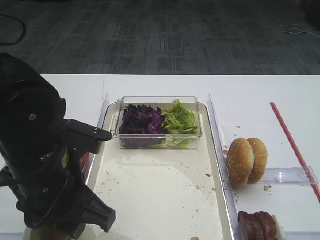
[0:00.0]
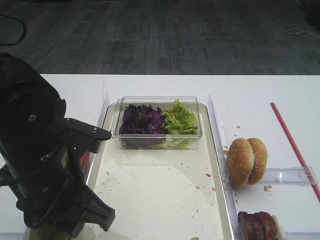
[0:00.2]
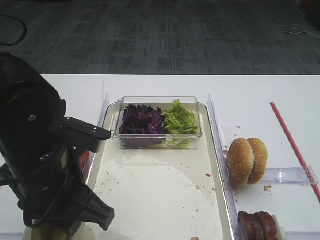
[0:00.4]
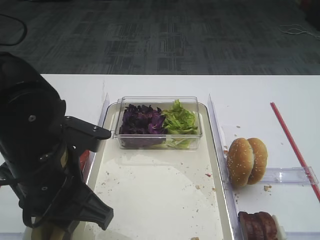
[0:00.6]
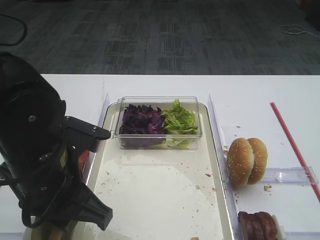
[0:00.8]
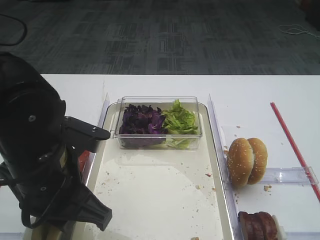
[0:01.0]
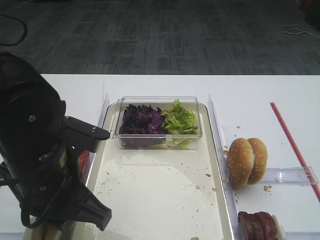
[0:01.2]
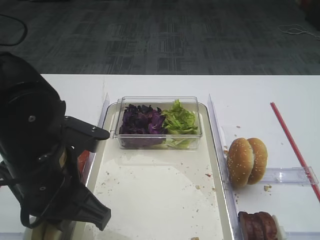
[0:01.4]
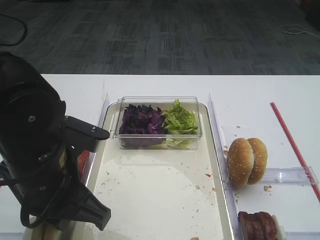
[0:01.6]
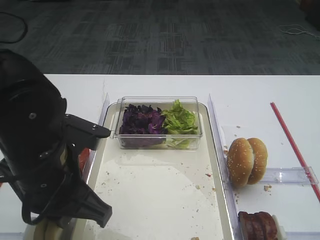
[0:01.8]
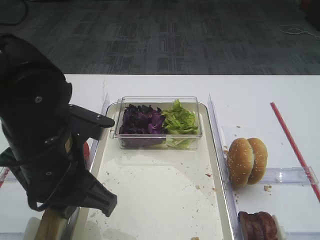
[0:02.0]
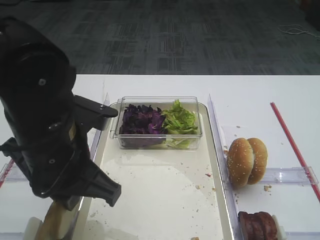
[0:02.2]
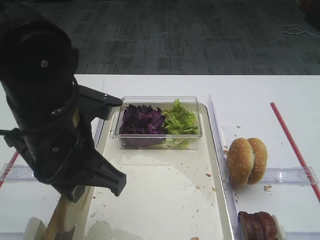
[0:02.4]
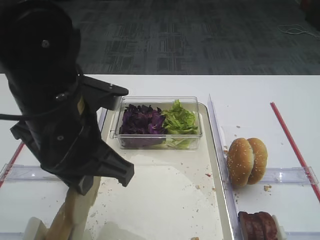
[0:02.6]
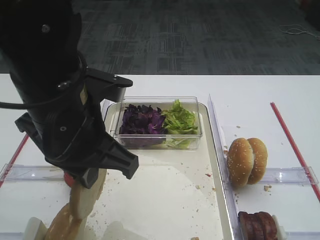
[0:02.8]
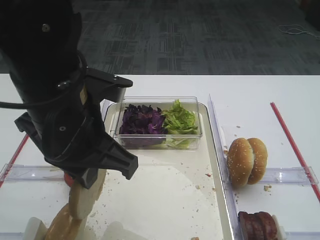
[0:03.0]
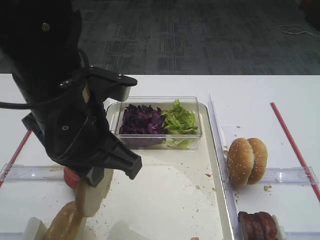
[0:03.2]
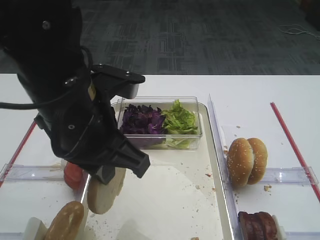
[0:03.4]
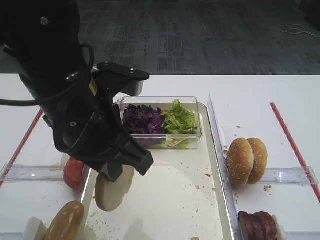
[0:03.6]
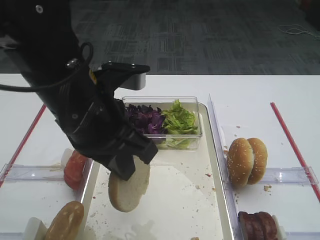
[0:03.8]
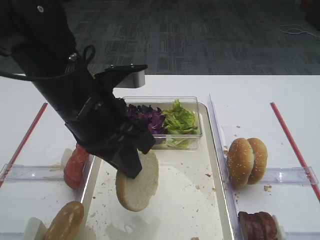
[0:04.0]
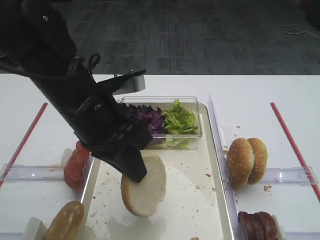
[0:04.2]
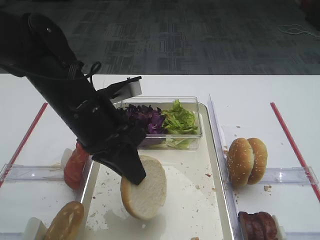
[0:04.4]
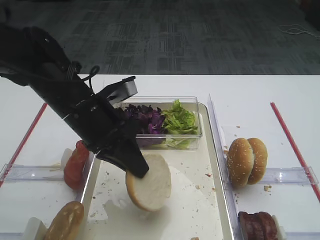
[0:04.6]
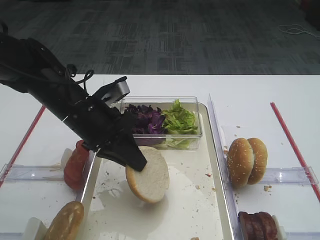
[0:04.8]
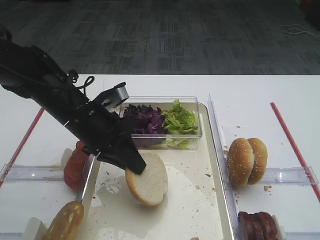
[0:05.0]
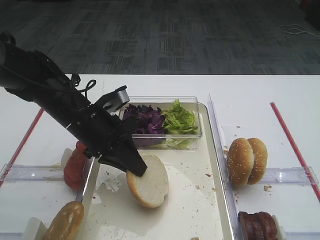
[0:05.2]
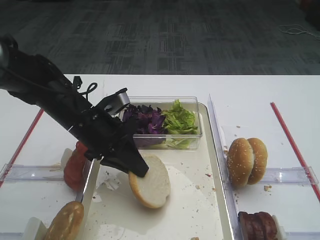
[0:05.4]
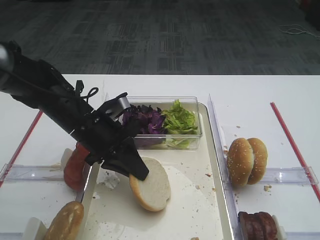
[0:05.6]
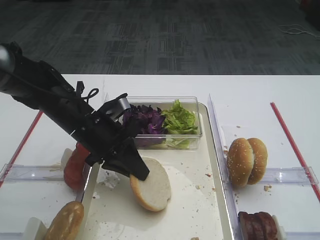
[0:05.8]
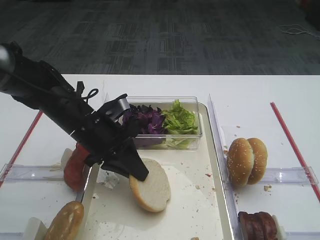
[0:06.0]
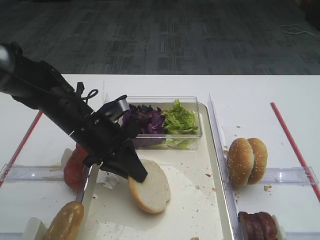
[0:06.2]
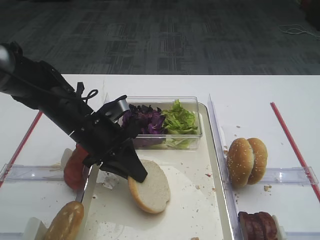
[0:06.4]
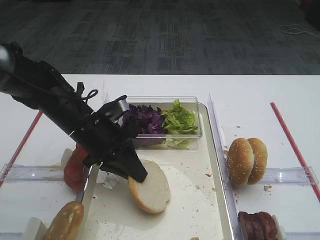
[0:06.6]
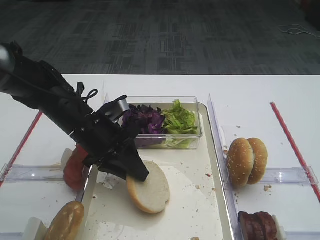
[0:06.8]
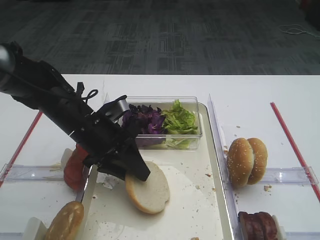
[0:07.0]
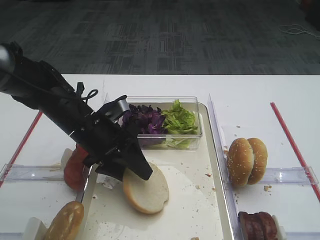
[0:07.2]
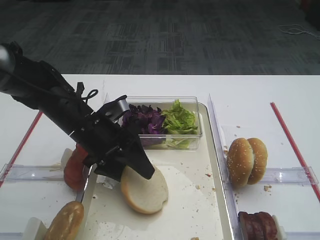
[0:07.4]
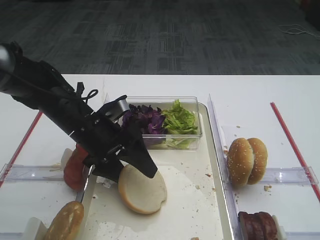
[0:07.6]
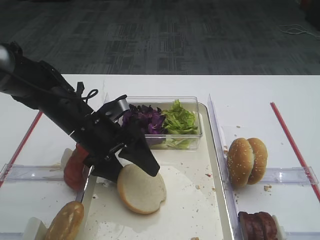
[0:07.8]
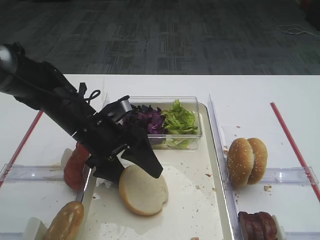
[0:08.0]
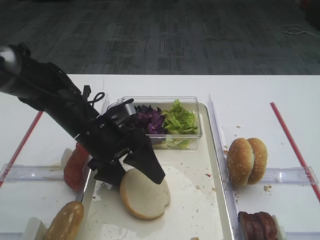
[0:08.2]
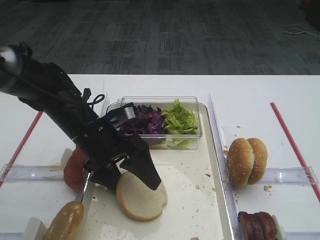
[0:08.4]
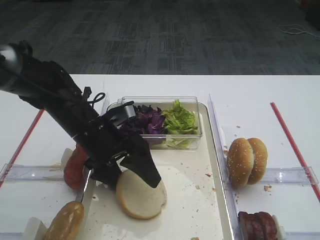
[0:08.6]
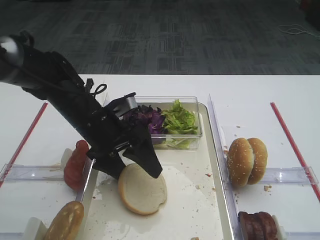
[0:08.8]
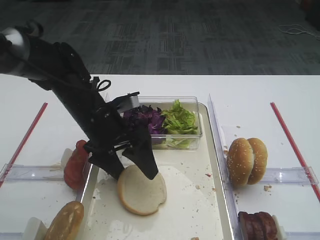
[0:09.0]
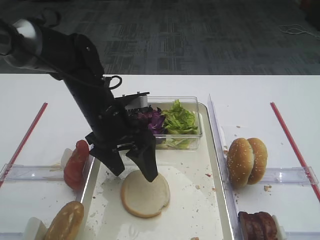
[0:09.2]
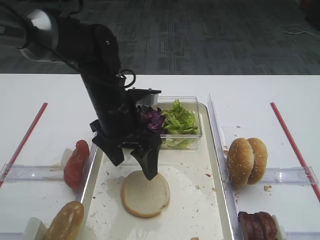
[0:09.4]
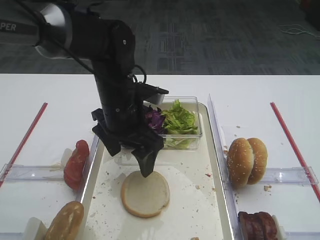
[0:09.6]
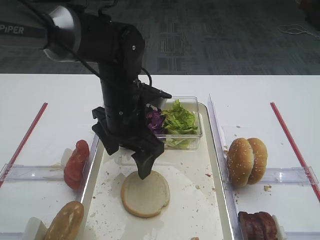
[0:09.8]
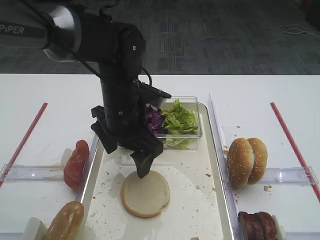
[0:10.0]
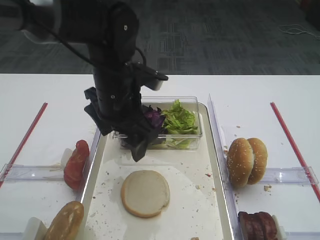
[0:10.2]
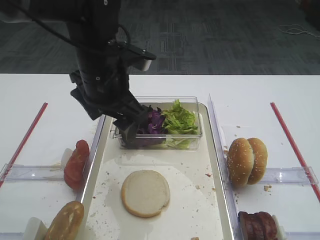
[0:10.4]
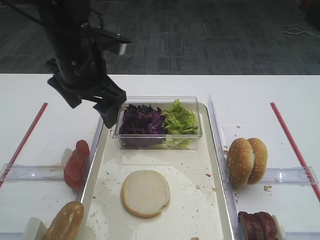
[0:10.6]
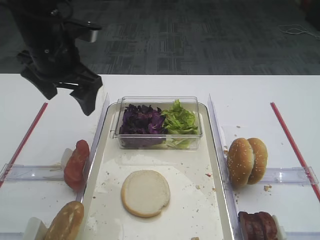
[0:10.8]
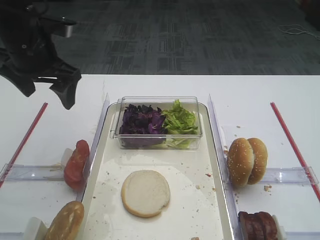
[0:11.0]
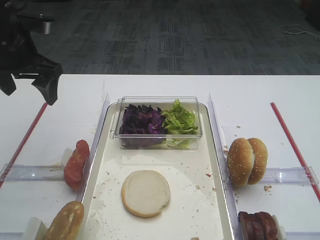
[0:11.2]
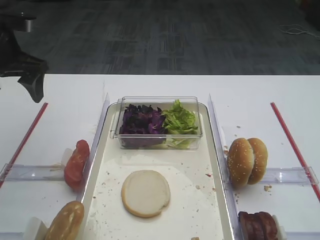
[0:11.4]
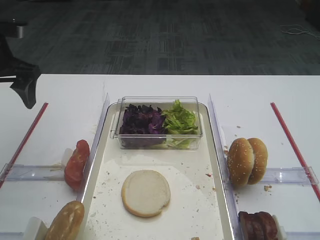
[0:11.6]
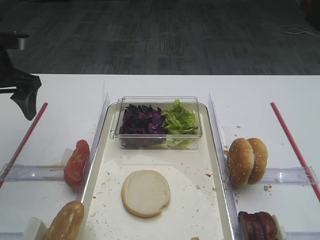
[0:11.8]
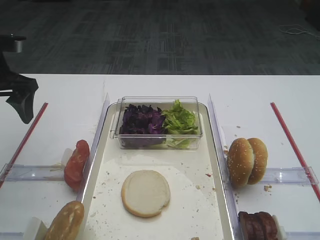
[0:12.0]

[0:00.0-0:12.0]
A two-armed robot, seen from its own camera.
Step, 0:00.0 to 0:02.0: Pick up the bread slice with the left gripper.
Step, 0:02.4 to 0:09.4: Place the bread slice on the tray with the left gripper.
0:00.0 to 0:01.6: The left gripper closes its fingers.
0:01.6 to 0:03.0: The left gripper is displaced upward by some 5 cm.
0:03.0 to 0:04.4: The left gripper goes roughly 10 cm forward and downward.
0:04.4 to 0:06.0: The left gripper travels downward by roughly 5 cm.
0:06.0 to 0:07.6: The left gripper opens up.
0:07.6 to 0:09.0: The grippers stay close to where they were, moving slightly.
0:09.0 to 0:10.4: The left gripper is displaced upward by approximately 10 cm.
0:10.4 to 0:12.0: The left gripper goes some 20 cm to the left.

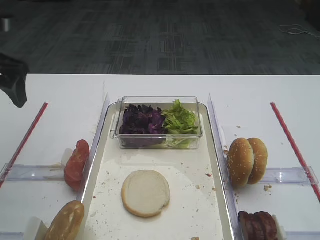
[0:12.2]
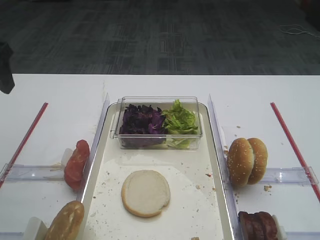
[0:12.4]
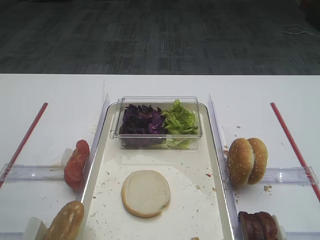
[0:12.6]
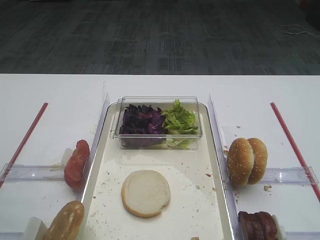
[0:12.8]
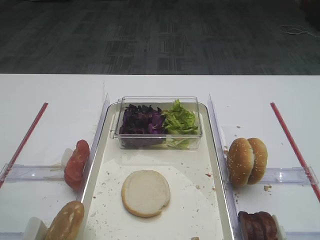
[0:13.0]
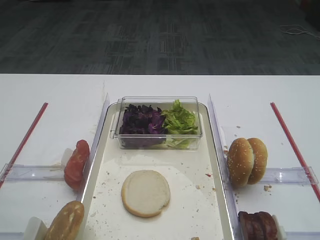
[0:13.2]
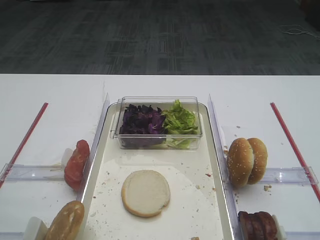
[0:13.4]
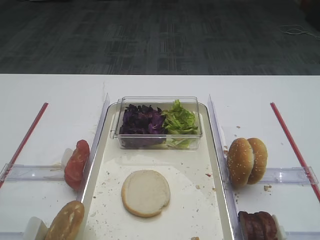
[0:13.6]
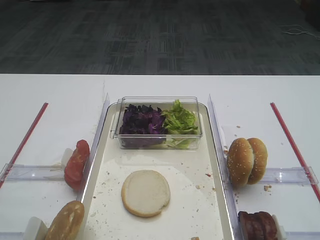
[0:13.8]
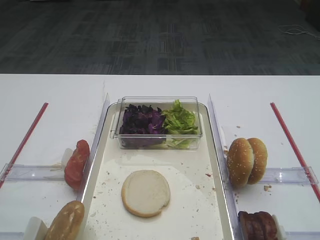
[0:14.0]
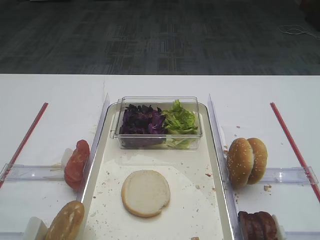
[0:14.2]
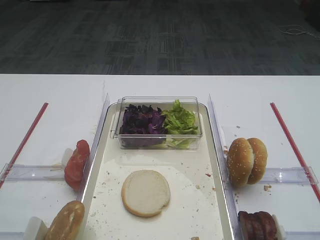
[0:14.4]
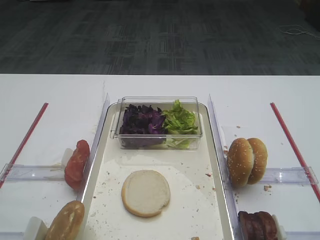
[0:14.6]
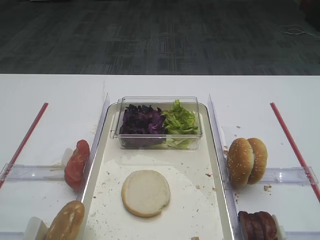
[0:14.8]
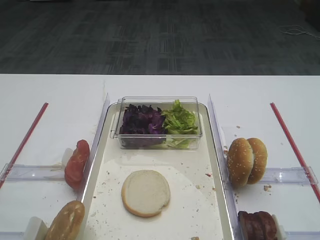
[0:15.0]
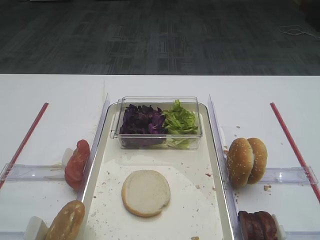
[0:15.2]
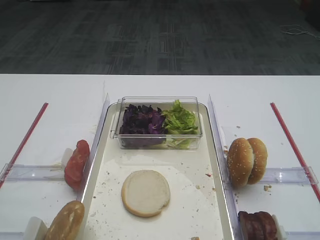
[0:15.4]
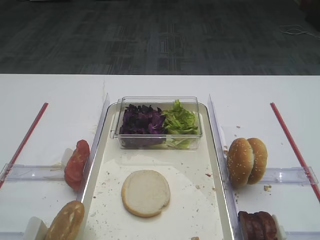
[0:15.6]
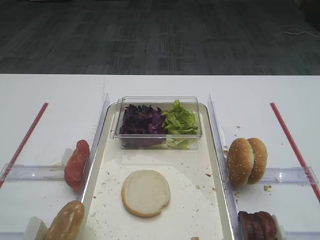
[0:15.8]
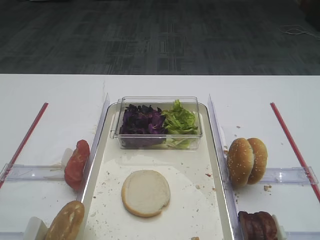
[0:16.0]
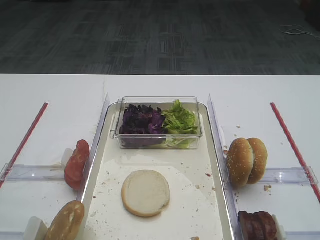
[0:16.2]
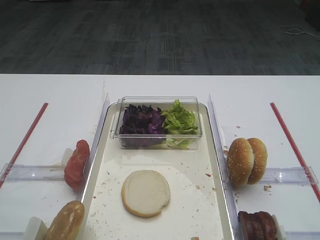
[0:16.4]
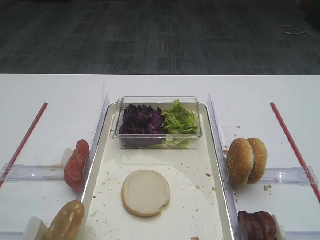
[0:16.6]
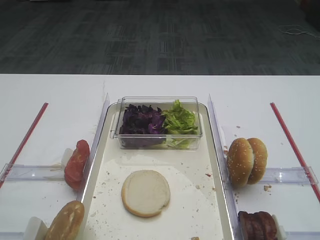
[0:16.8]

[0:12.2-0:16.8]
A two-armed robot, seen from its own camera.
0:12.2 to 0:13.8: The left gripper goes approximately 30 cm backward.
0:15.2 to 0:16.8: The two grippers keep their place.

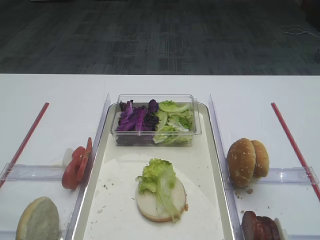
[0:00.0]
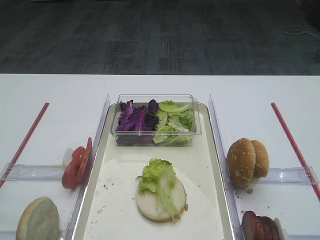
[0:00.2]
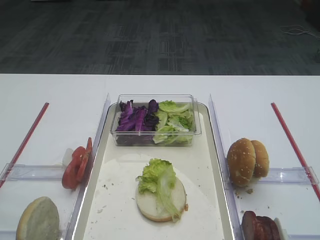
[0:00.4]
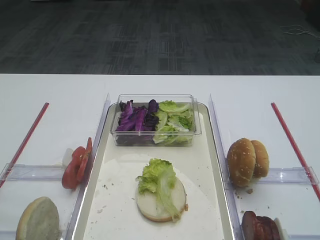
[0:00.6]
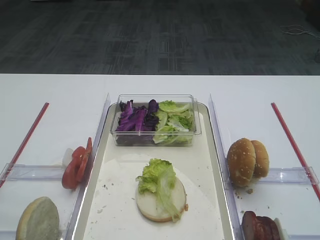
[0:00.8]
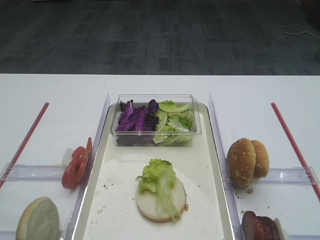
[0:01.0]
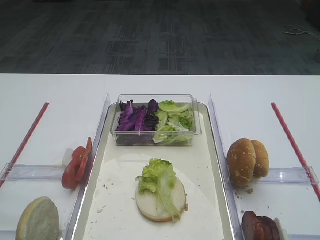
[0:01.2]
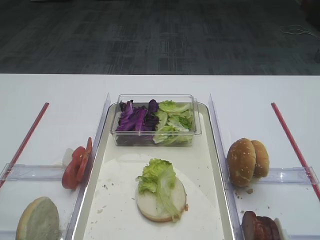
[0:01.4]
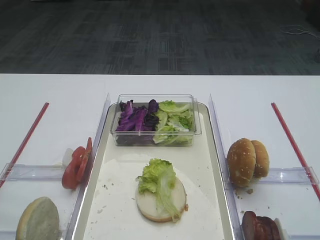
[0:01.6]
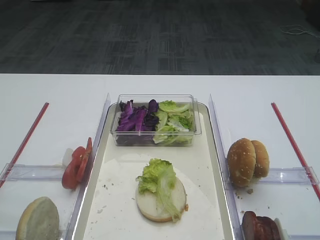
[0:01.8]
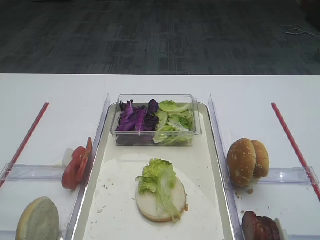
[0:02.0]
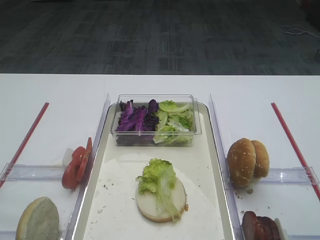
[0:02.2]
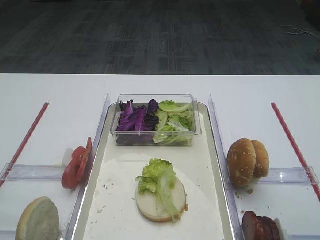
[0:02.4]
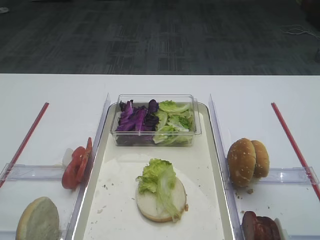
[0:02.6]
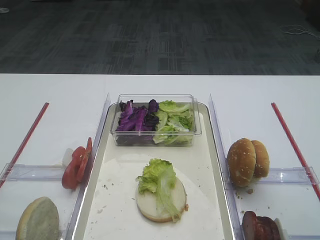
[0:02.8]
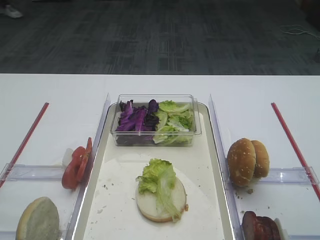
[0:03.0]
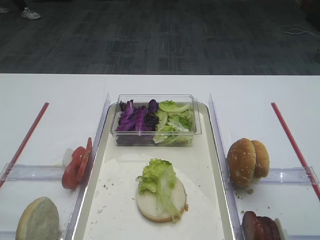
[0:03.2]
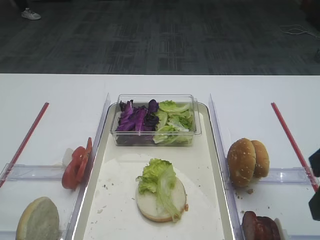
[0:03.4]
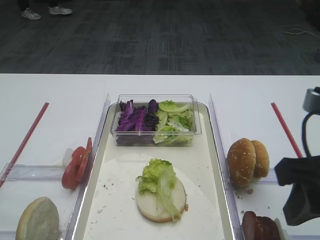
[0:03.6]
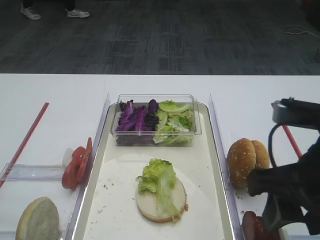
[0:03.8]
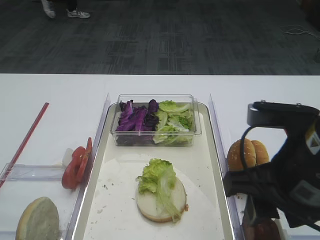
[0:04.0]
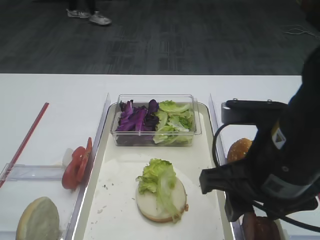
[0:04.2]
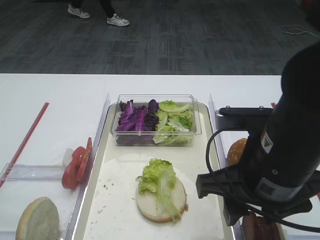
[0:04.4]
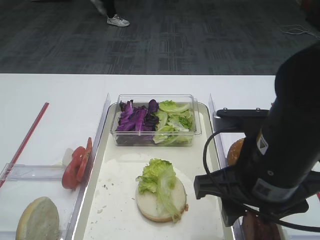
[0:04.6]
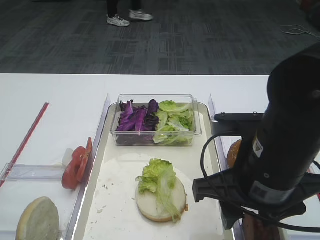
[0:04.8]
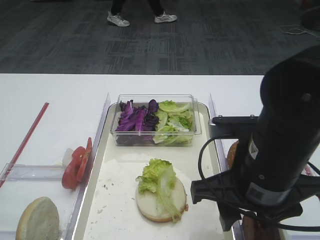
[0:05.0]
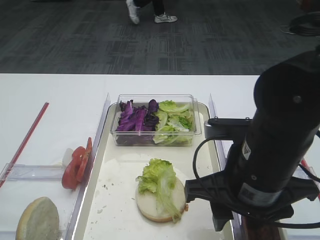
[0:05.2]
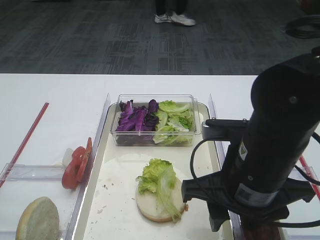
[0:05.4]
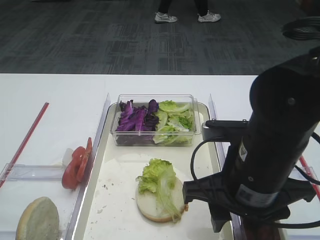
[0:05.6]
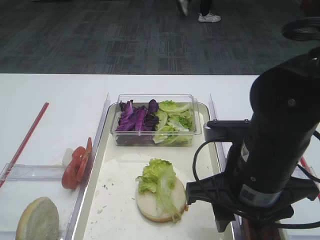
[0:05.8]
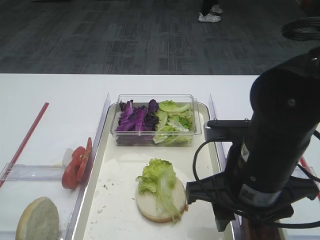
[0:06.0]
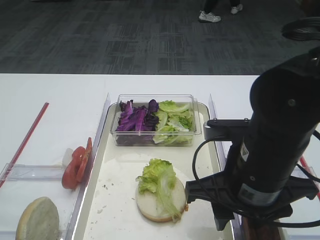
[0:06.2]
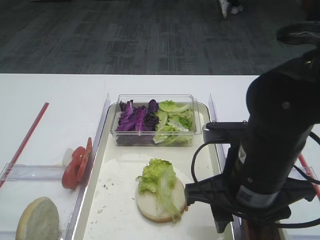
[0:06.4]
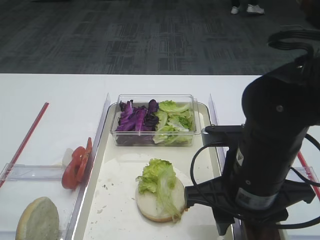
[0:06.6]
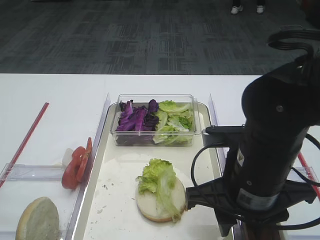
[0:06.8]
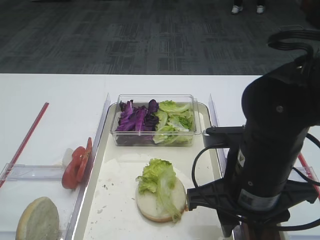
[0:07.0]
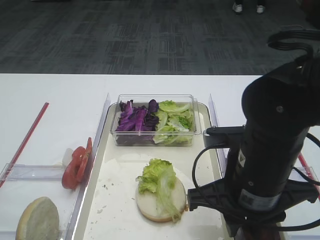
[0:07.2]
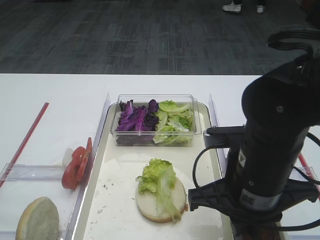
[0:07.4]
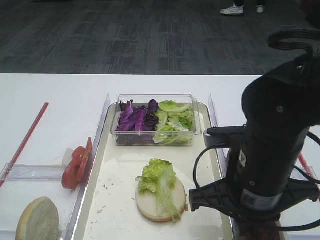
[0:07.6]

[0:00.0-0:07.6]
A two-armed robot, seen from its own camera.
0:03.0 to 0:04.6: The right gripper is displaced to the left, downward and forward by some 15 cm.
0:04.6 to 0:06.0: The grippers move only a little.
0:06.0 to 0:07.6: The right gripper closes its fingers.
